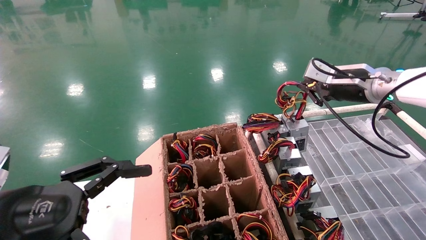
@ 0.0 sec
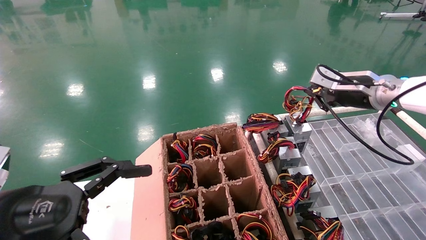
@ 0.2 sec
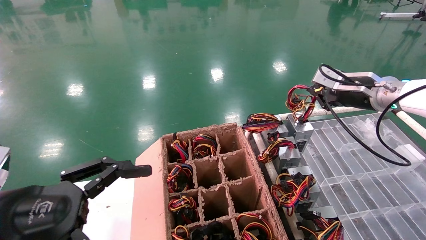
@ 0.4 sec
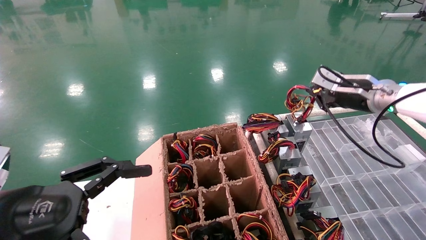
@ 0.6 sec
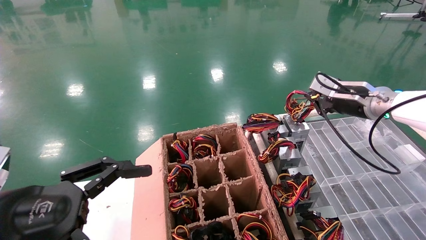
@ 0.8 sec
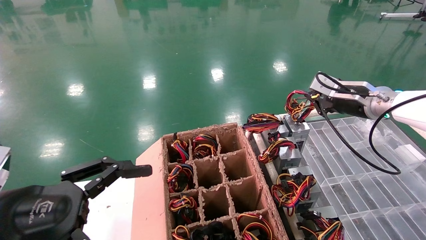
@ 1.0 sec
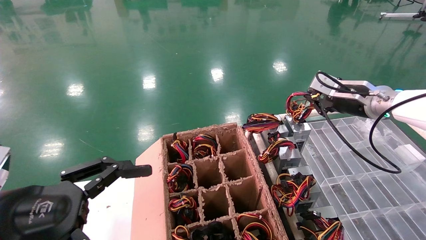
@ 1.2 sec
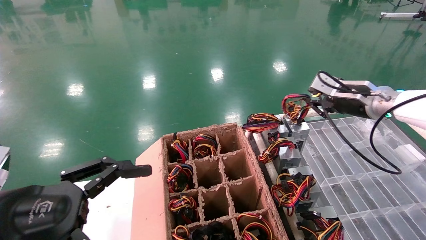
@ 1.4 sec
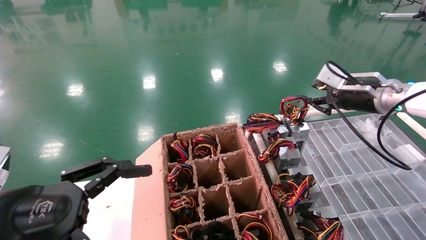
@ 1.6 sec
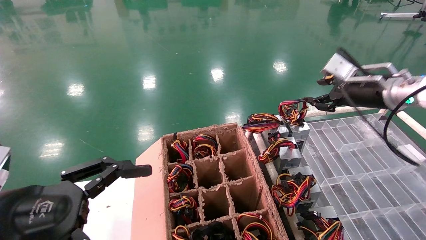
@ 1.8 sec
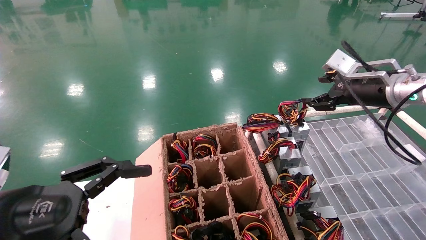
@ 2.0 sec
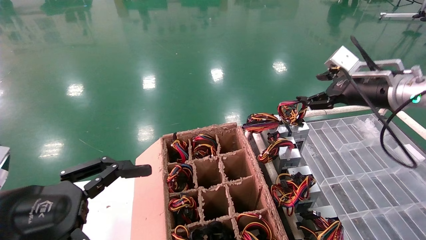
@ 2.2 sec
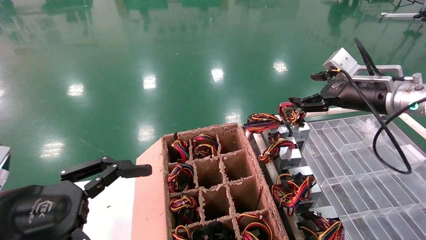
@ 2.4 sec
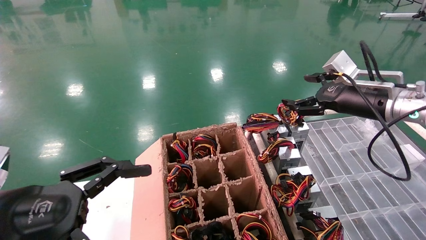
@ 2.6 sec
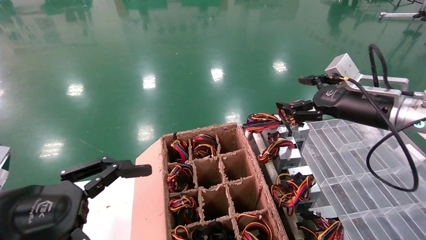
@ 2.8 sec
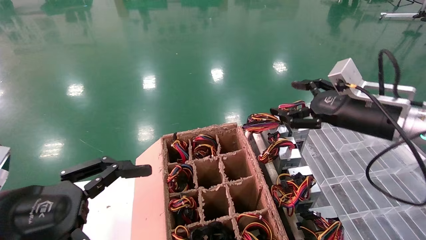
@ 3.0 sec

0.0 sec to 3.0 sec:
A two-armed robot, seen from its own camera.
0.0 sec to 1.6 sec: The grippers make only small movements.
1.6 sec to 3.0 sec: The right gripper heads backward, covering some 5 cm, and opens up.

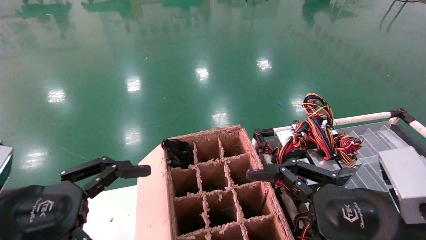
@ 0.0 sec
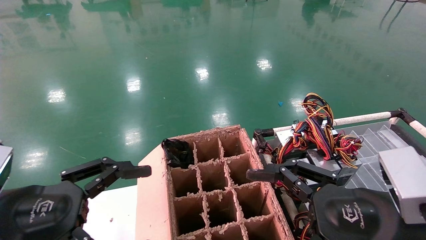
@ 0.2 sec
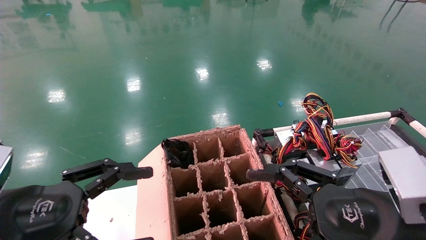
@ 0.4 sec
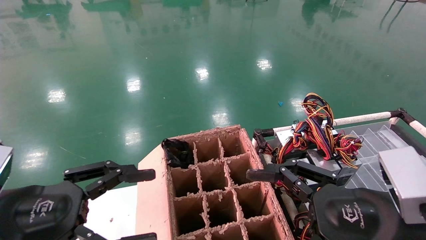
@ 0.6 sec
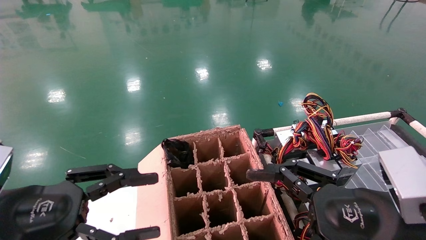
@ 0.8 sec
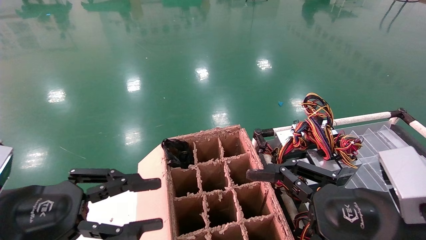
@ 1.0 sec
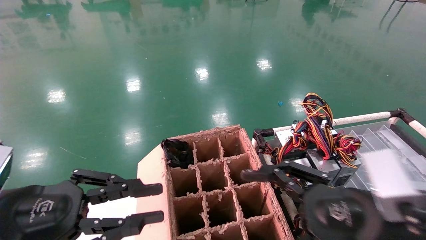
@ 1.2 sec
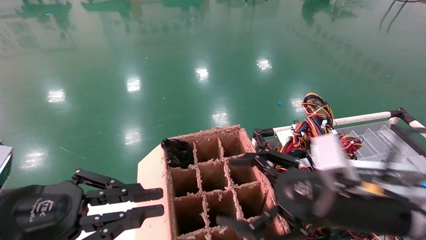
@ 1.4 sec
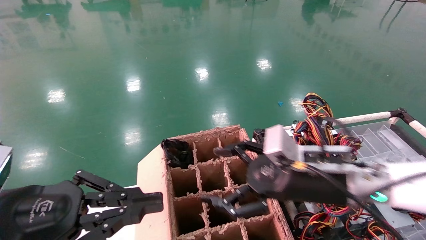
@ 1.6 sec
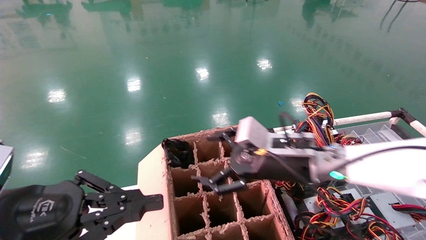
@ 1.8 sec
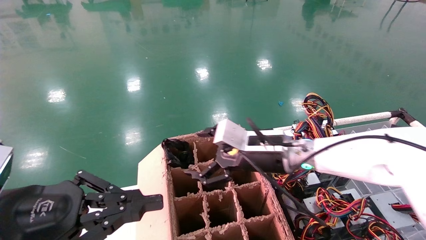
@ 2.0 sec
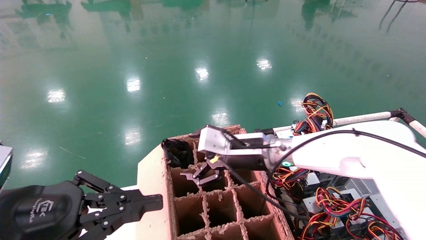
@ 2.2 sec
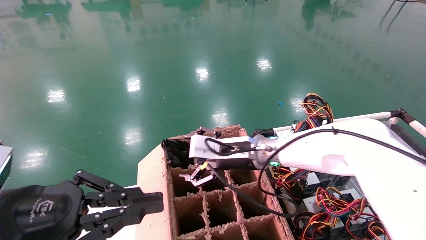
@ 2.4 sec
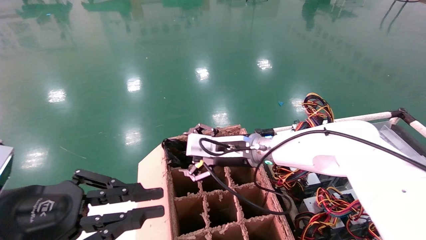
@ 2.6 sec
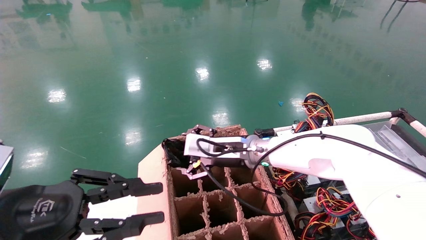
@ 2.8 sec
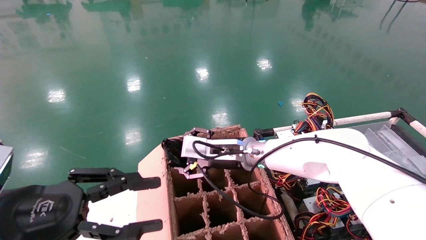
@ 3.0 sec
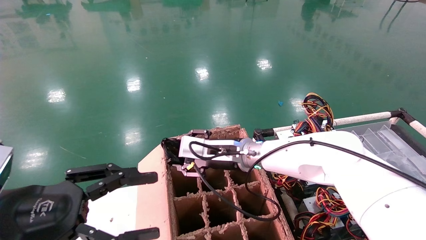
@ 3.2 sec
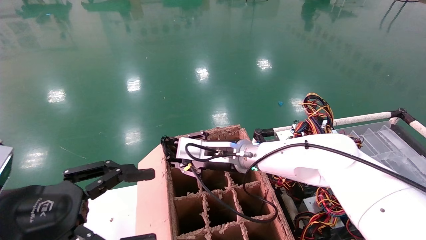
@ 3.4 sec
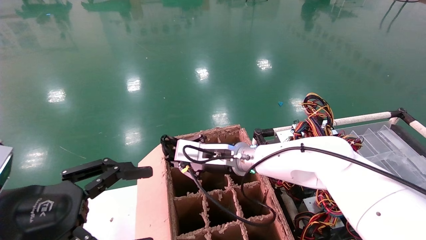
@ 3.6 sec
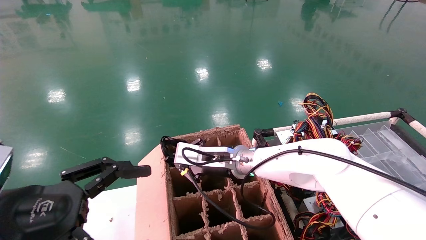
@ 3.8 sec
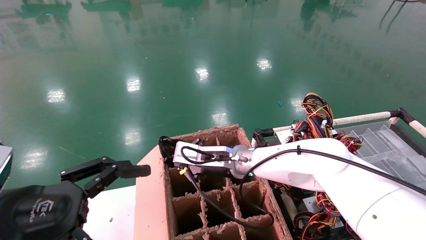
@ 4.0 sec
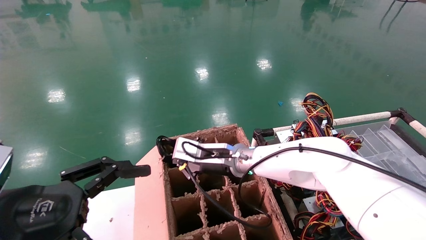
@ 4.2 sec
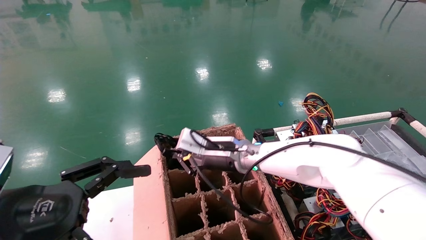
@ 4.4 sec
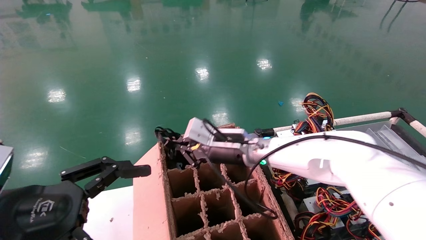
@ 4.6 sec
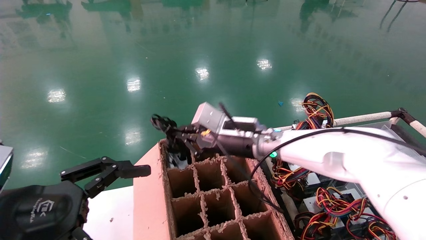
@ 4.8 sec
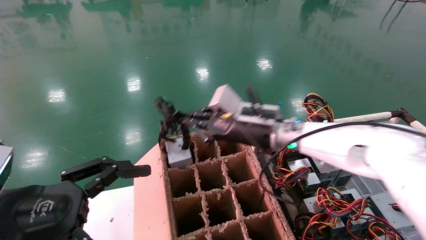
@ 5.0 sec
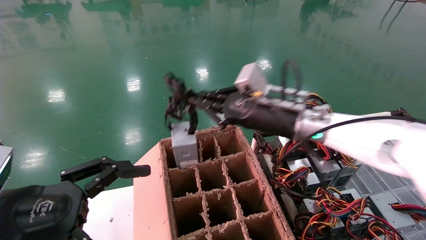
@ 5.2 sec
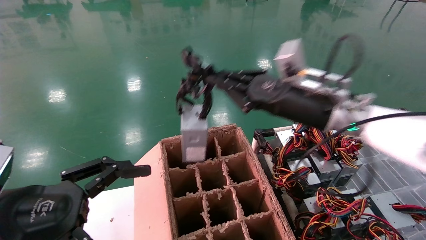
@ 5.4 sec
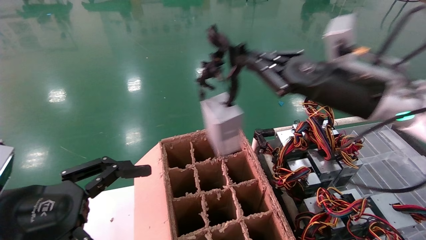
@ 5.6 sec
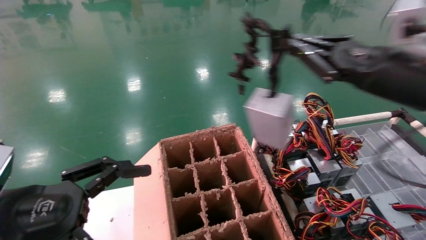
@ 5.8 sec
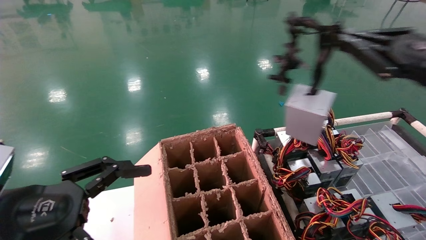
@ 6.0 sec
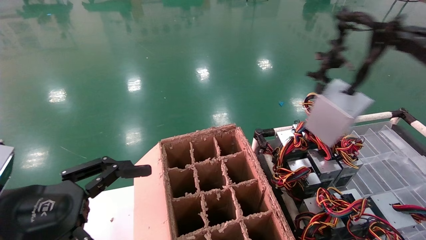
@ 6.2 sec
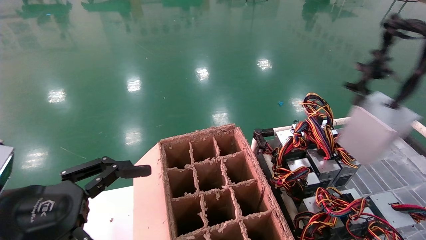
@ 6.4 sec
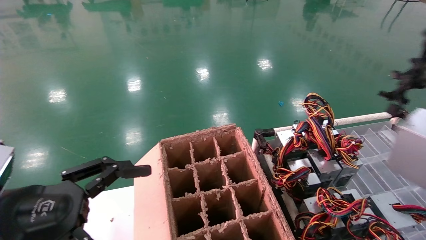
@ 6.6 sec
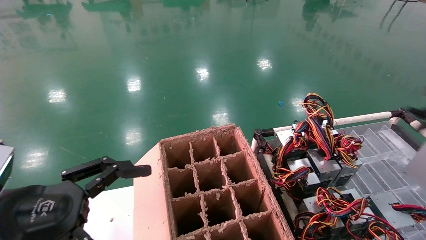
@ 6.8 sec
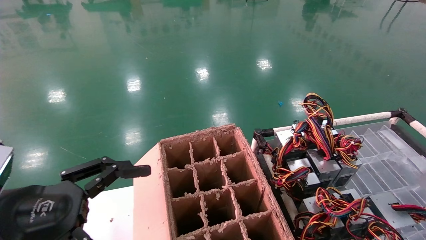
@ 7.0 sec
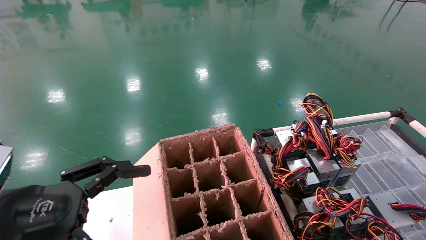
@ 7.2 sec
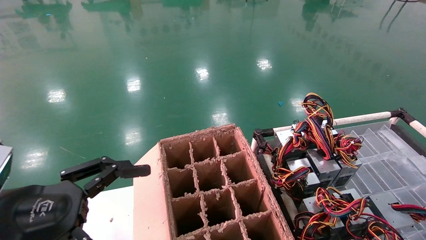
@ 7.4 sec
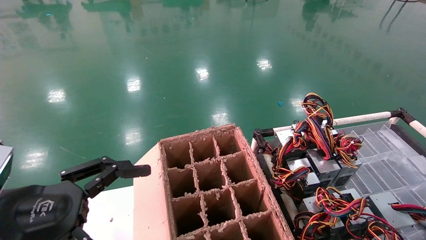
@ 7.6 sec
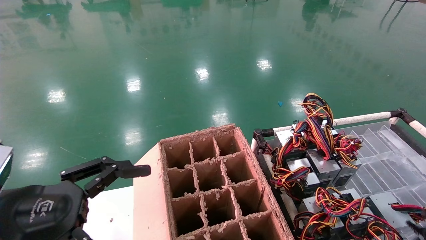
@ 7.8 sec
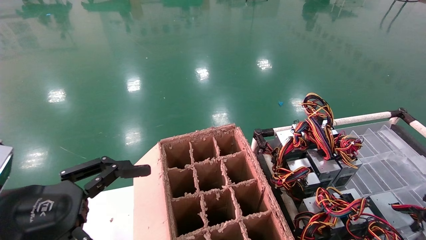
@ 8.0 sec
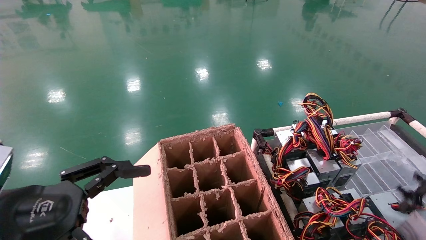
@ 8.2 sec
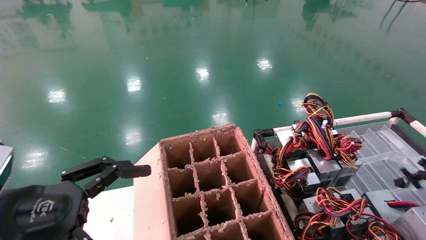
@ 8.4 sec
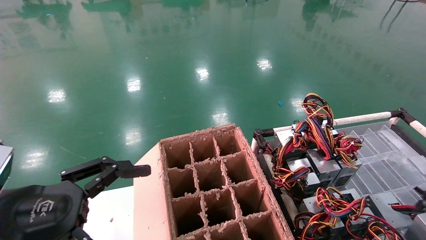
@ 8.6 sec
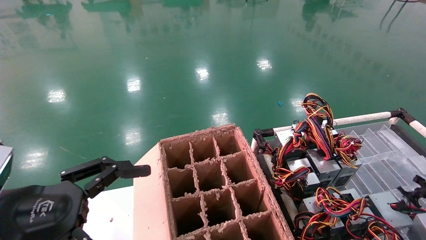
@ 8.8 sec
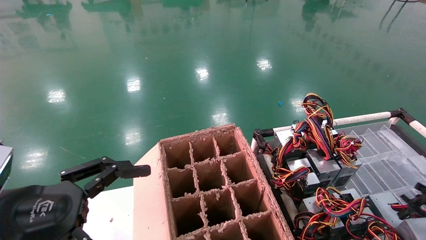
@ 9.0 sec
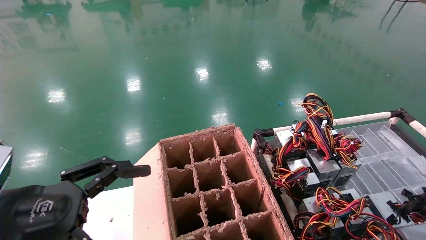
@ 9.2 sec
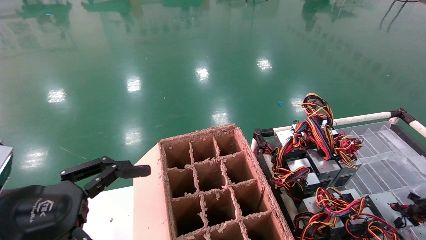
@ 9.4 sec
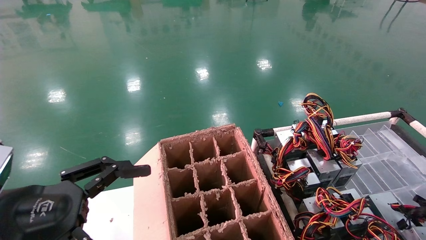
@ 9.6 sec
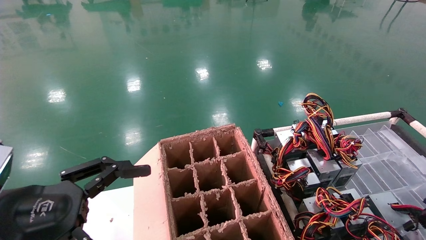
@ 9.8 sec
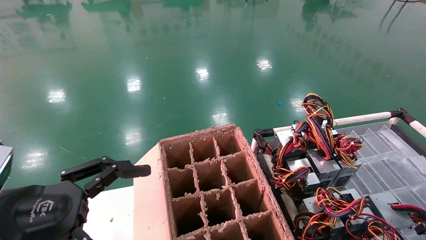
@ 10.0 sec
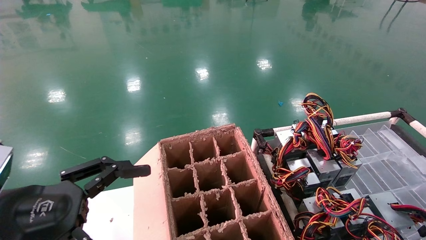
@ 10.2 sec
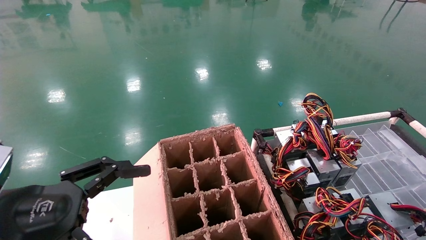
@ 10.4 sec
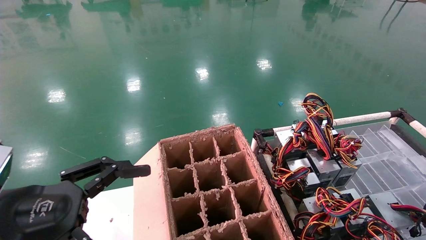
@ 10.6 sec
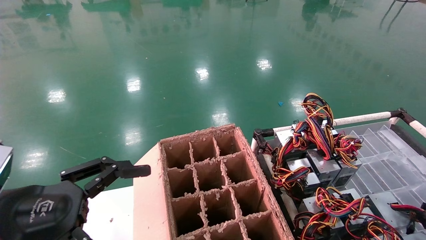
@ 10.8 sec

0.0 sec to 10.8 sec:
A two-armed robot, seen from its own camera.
Step, 0.8 sec to 4.0 sec: Grab and lift the power supply from the large box.
0.0 sec to 1.6 sec: The right gripper travels forward and to the left by about 15 cm. Meanwhile the left gripper closes its fingers.
1.6 sec to 3.0 sec: The right gripper shifts some 20 cm forward and to the left.
3.0 sec to 4.6 sec: The left gripper opens its fingers; the right gripper closes up.
4.6 sec to 6.2 sec: The right gripper goes roughly 40 cm to the right and backward.
6.2 sec to 7.8 sec: The right gripper moves downward, backward and to the right, approximately 30 cm.
7.8 sec to 9.2 sec: The right gripper heads downward, covering about 5 cm.
9.2 sec to 10.8 sec: The grippers make only small movements.

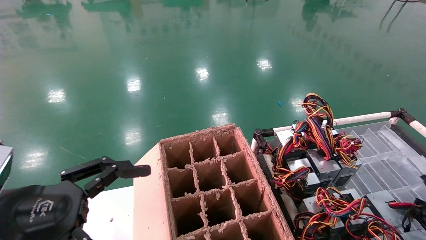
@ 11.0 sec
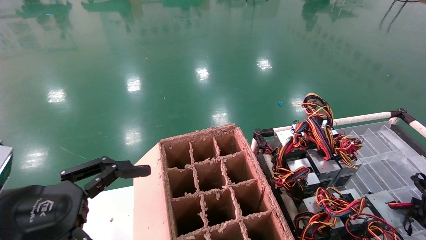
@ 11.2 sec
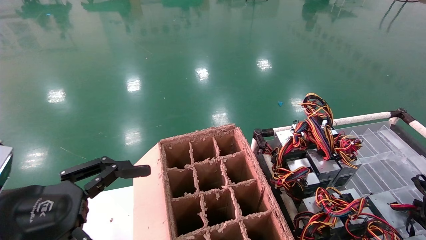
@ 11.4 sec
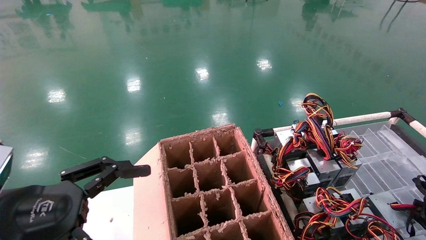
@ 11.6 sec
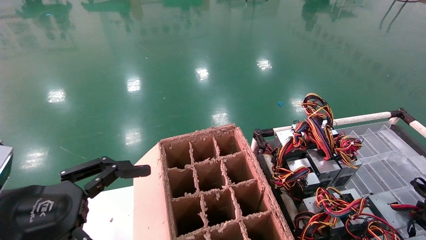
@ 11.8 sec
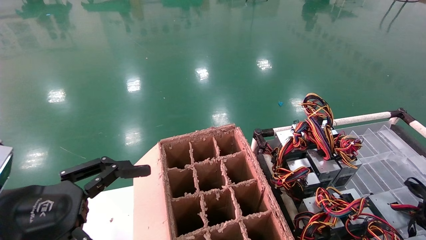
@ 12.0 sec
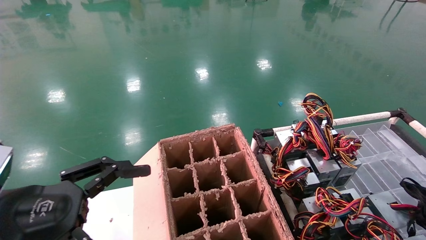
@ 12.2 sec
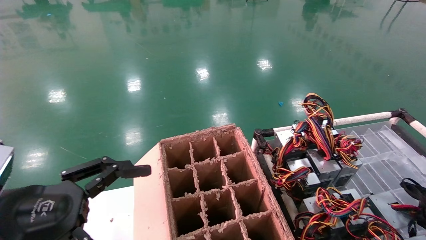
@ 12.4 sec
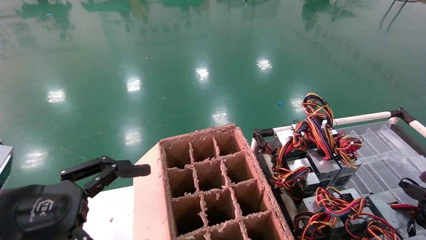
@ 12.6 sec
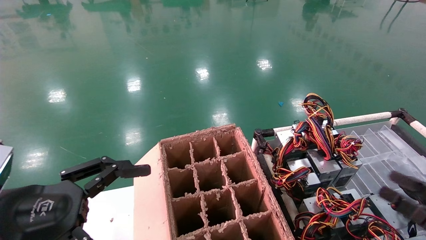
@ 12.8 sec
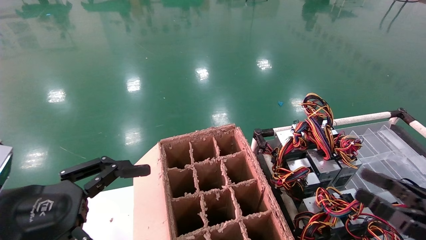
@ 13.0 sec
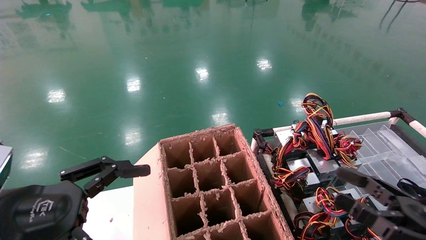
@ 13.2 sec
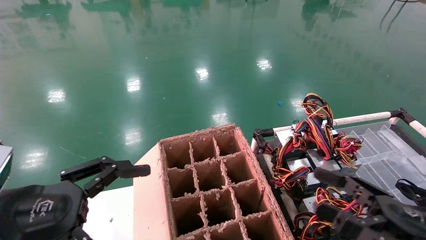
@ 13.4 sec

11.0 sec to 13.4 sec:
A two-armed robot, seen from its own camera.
11.0 sec to 12.2 sec: There are only small adjustments of the grippers.
12.2 sec to 13.4 sec: The right gripper is displaced to the left by roughly 15 cm, and opens its fingers.
